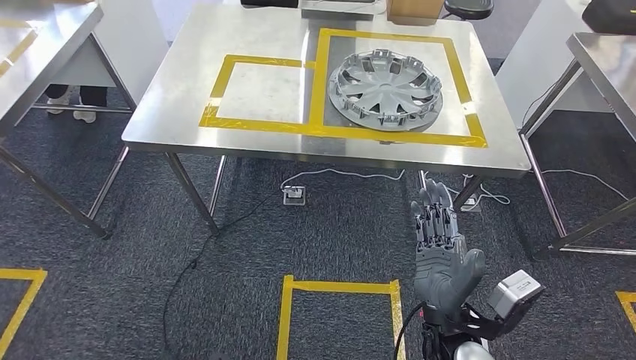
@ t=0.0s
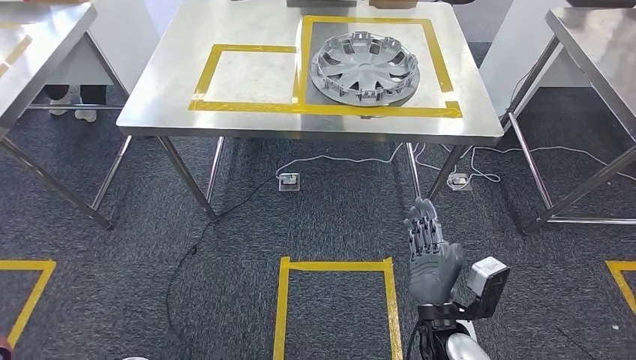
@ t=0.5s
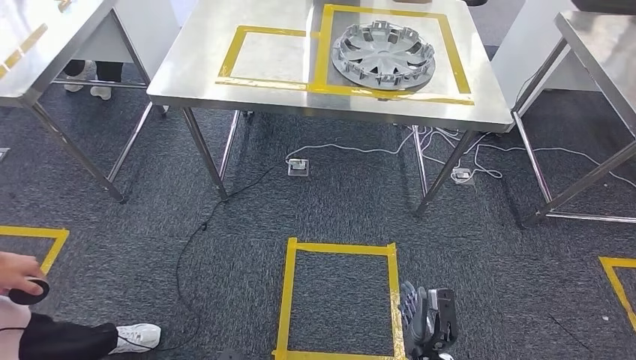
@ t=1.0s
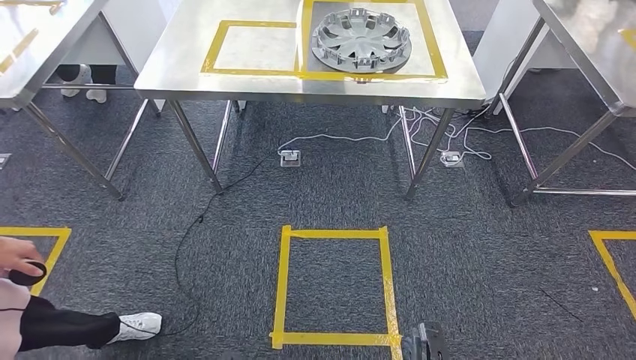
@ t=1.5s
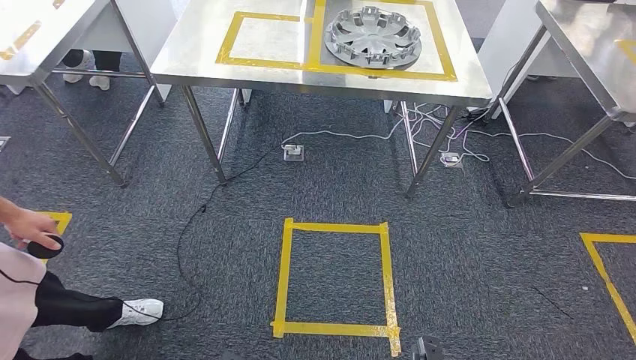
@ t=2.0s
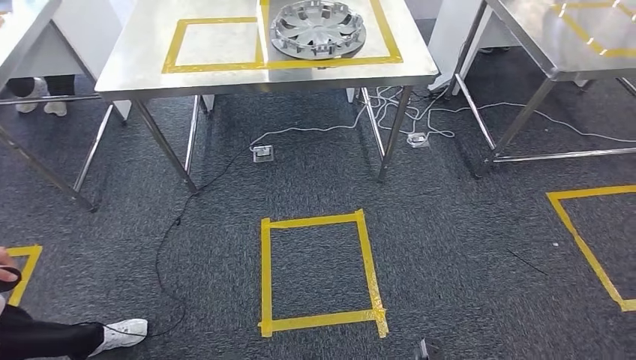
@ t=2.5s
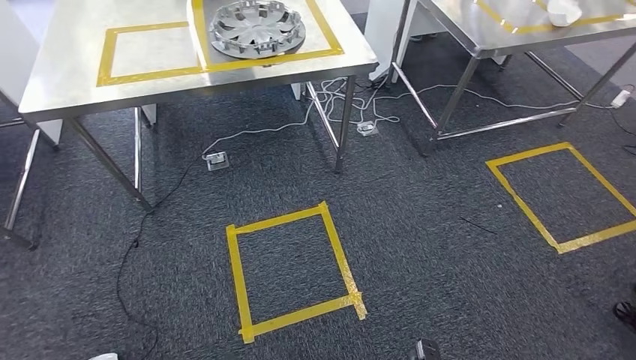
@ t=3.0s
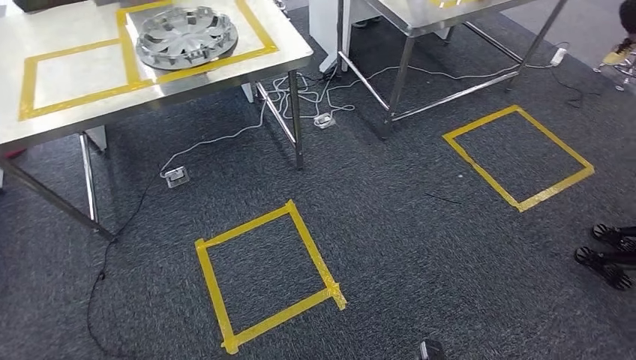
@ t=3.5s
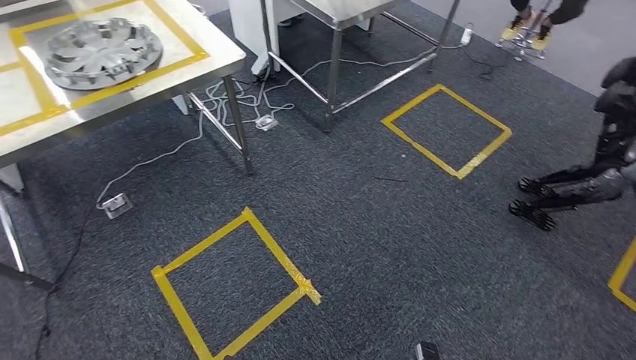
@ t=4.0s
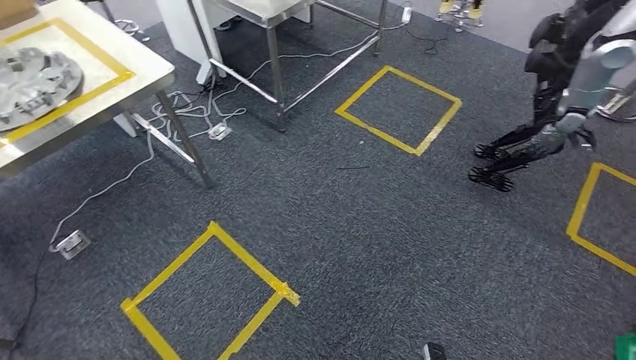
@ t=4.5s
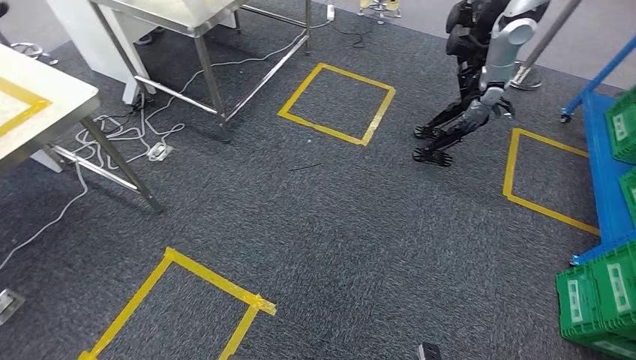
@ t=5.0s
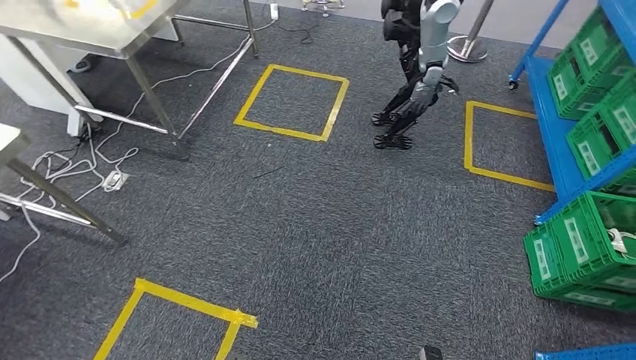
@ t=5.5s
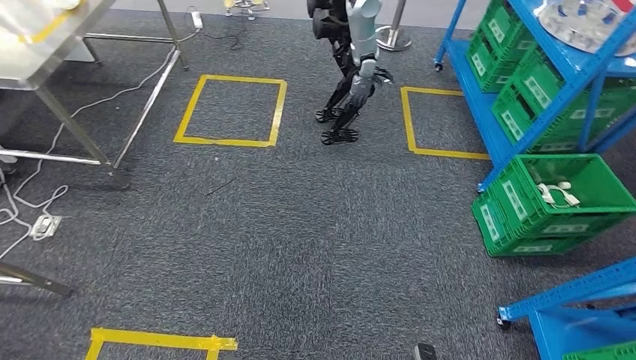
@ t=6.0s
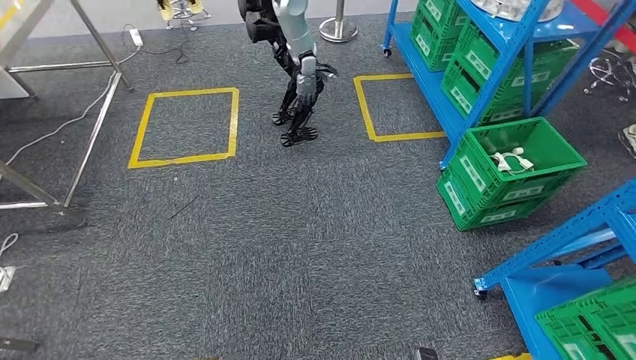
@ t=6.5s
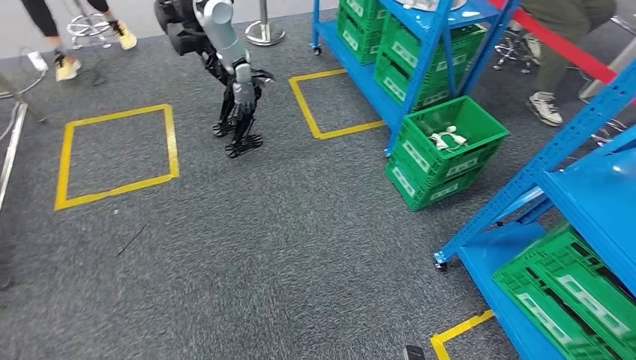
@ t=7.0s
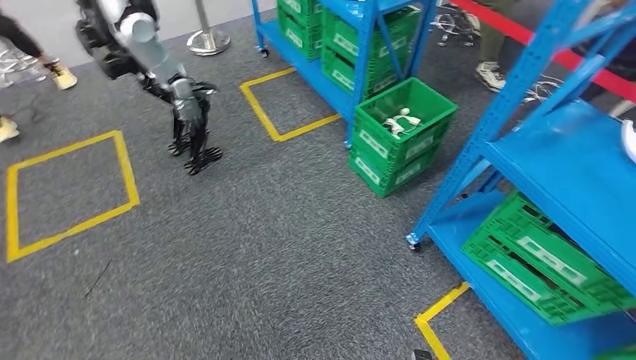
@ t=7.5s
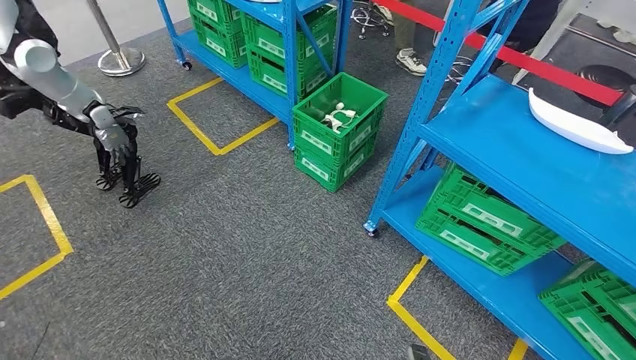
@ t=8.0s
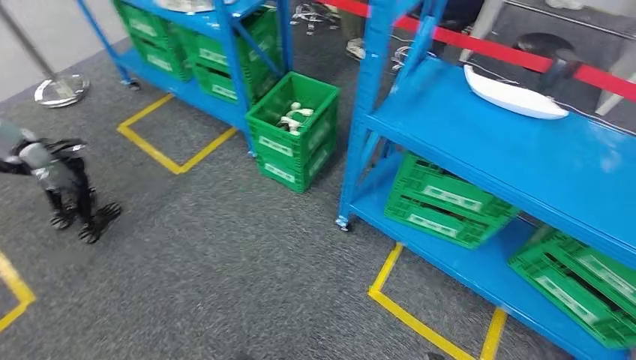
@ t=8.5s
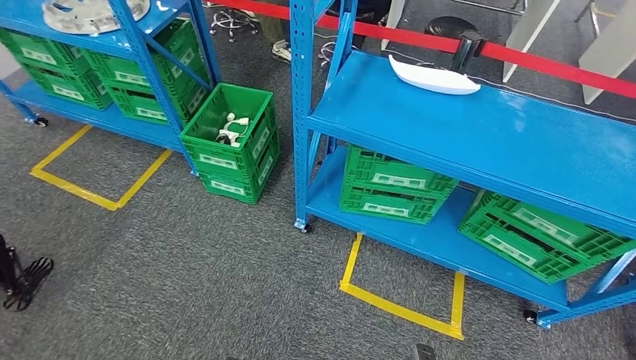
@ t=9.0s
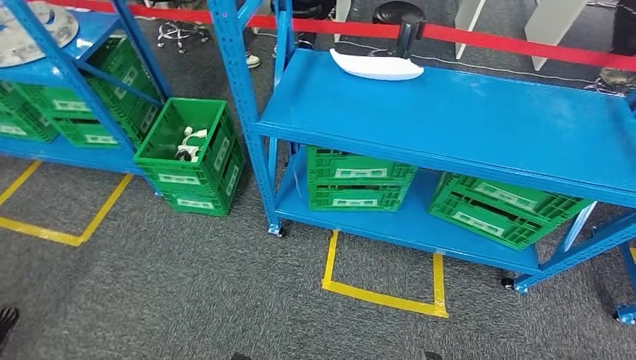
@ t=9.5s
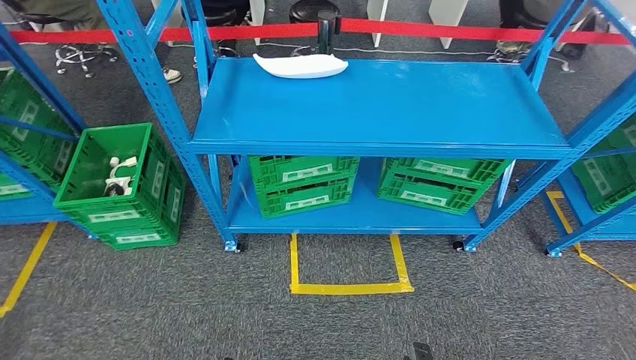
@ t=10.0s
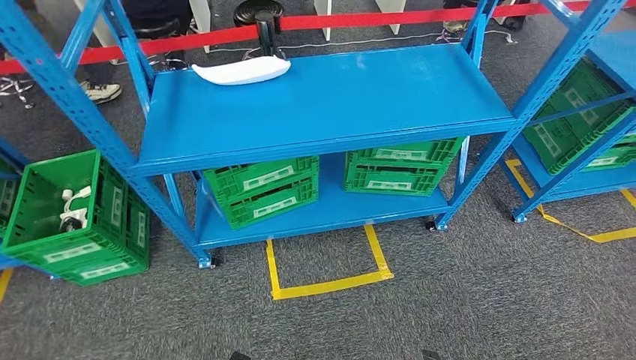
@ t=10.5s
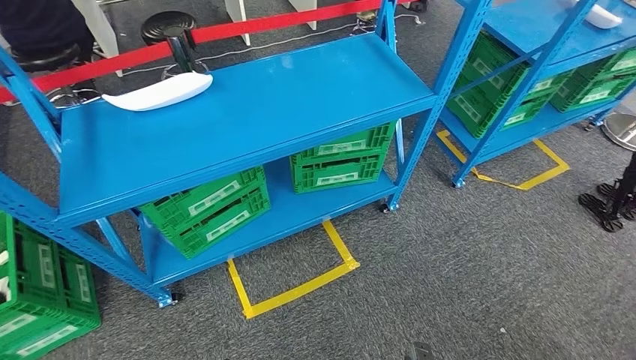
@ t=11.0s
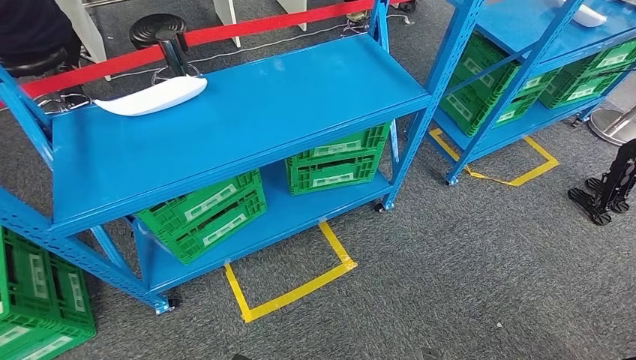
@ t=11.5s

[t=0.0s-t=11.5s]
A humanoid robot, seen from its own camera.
Step, t=0.0s to t=11.5s: Move to the initial position at the workbench.
